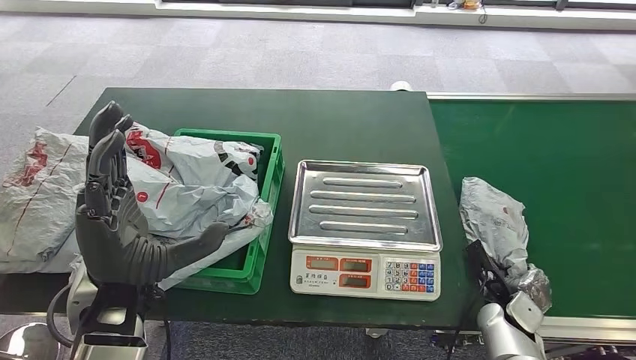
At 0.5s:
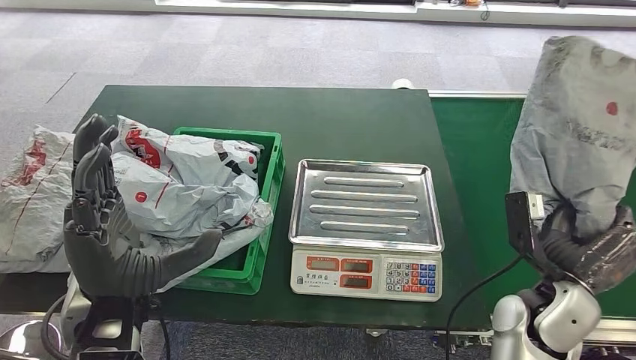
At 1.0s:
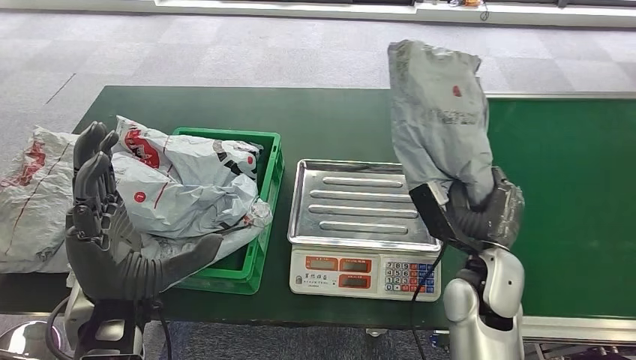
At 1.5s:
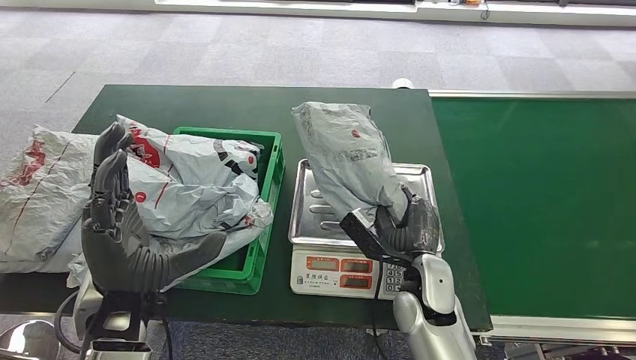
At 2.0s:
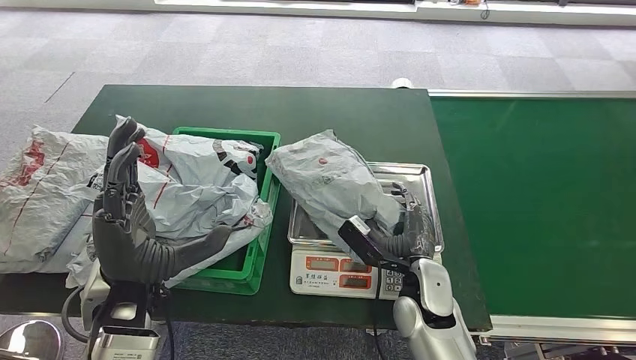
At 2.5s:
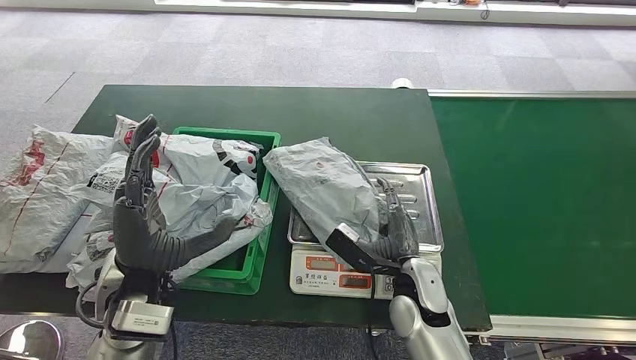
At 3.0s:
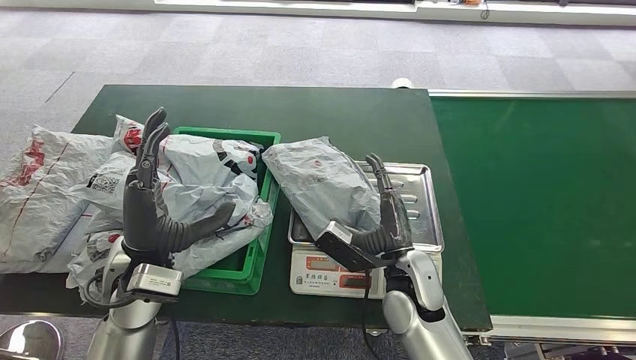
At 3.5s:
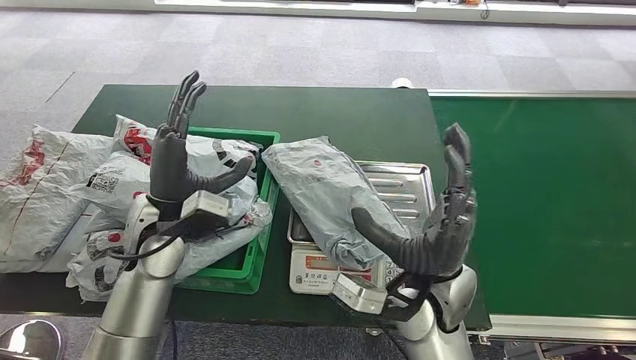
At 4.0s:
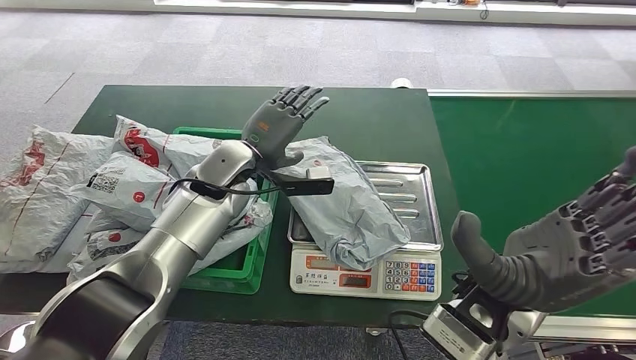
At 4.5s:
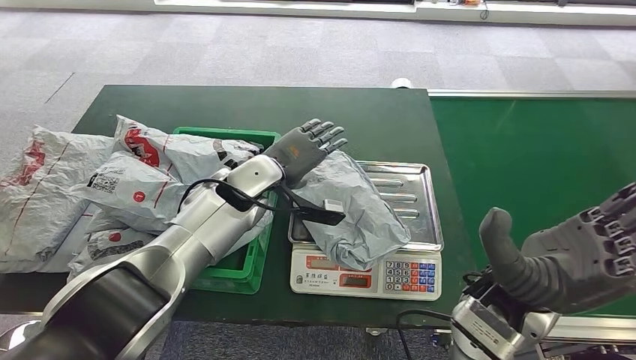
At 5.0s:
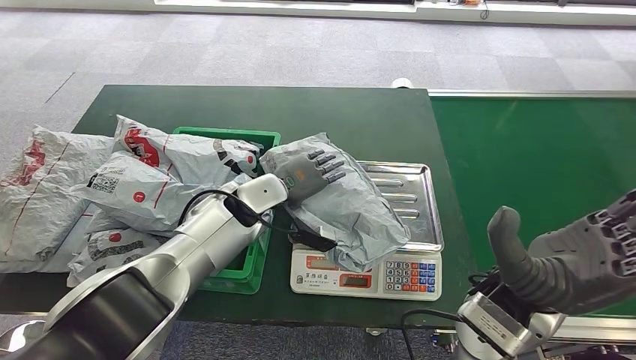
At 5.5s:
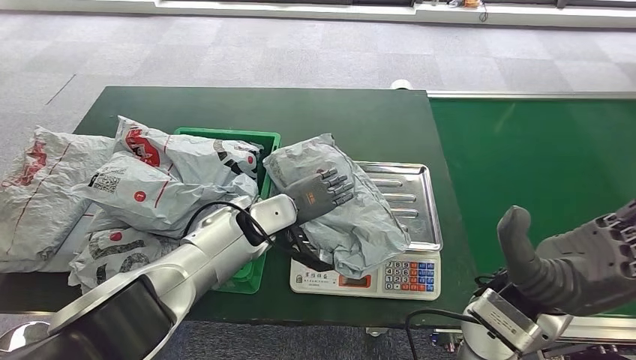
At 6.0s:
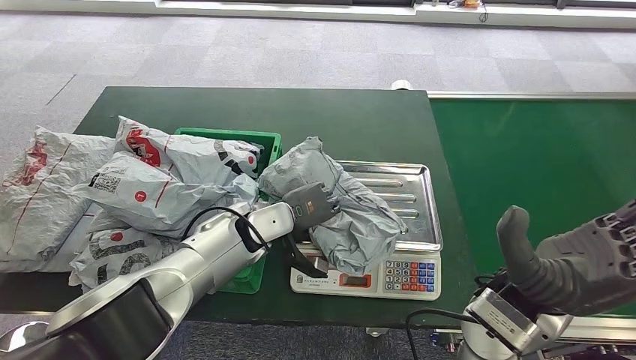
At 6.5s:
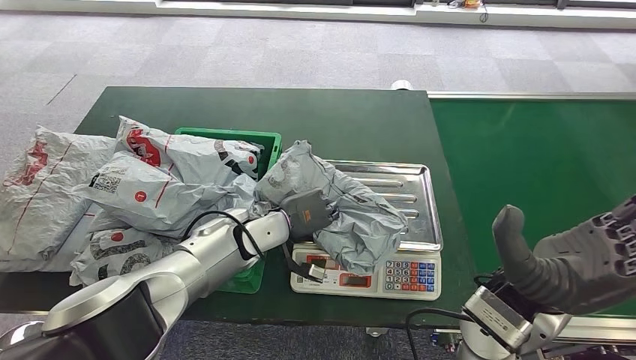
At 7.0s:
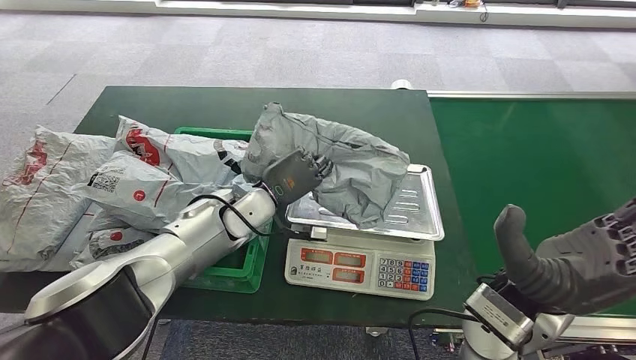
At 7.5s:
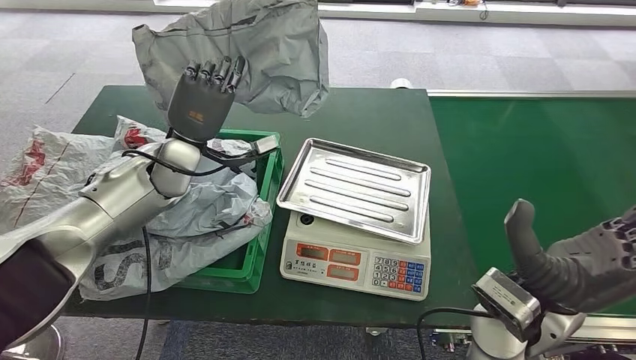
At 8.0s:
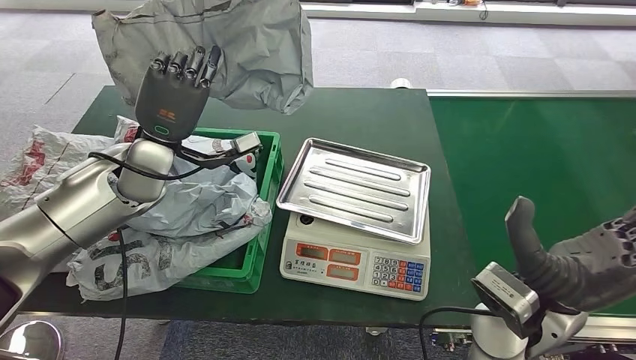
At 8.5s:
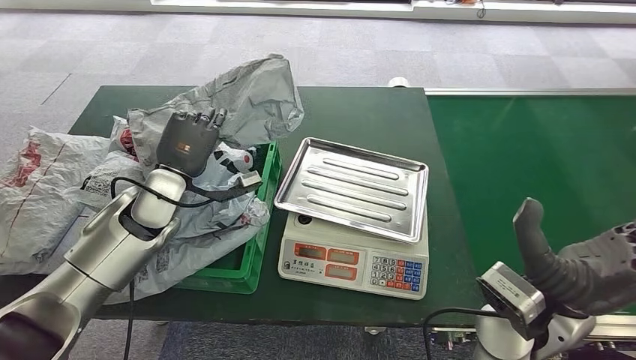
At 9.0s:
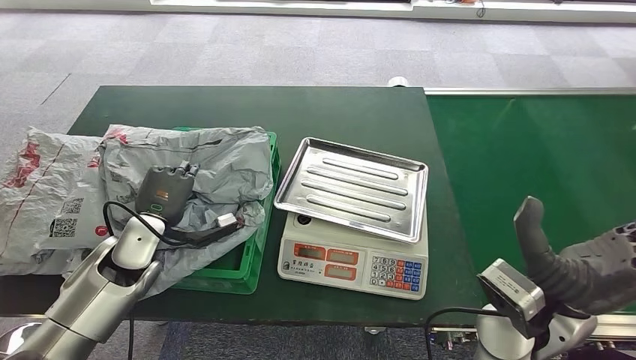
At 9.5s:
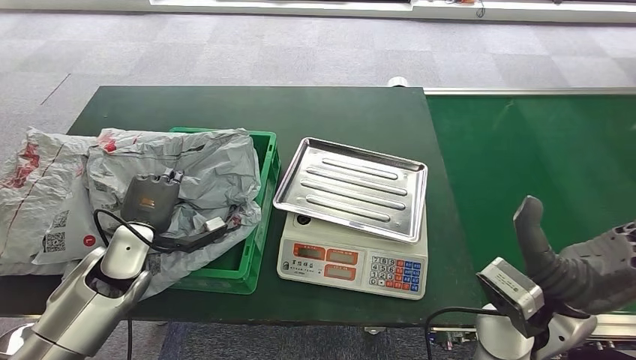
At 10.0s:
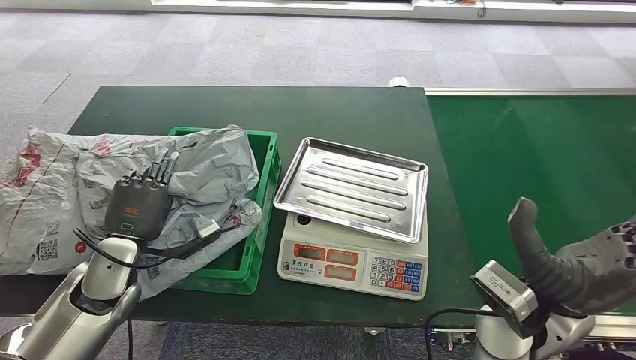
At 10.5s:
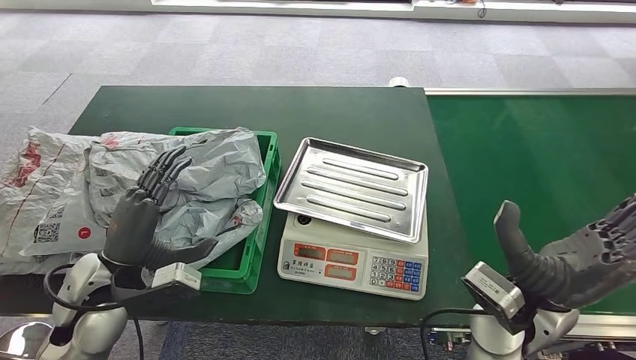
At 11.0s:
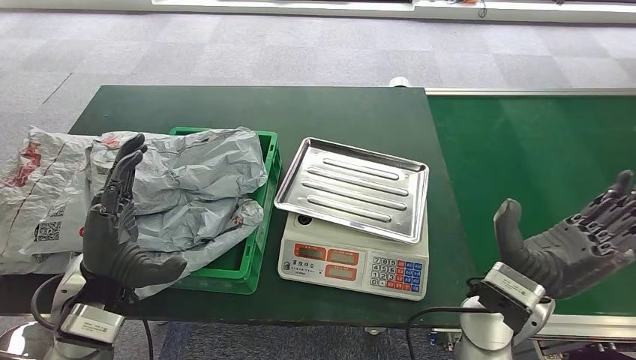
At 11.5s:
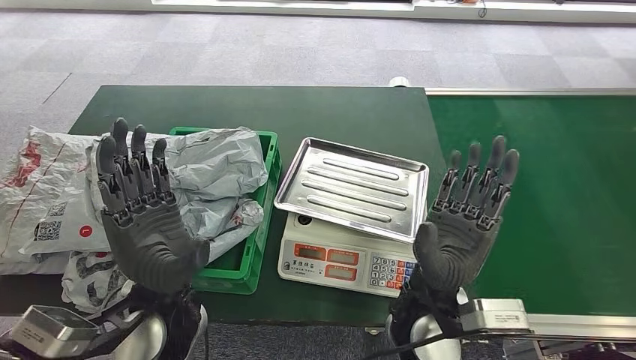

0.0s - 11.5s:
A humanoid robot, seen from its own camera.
Step, 1.0s - 4.0s: Place the parcel onto the inbound machine.
Step, 4.5s - 7.0s: Pick up the parcel from the inbound machine.
Step, 7.5s - 11.5s: Place the parcel into the delivery box.
